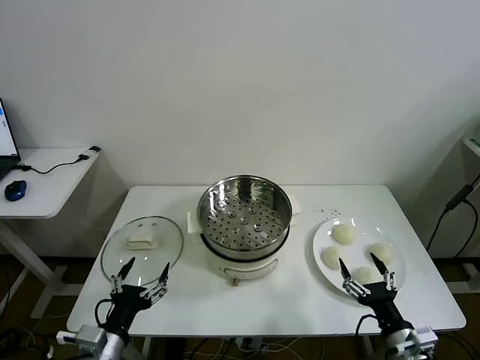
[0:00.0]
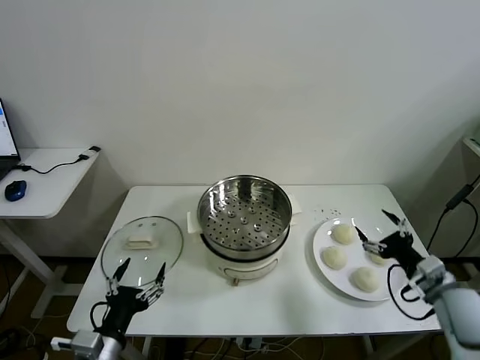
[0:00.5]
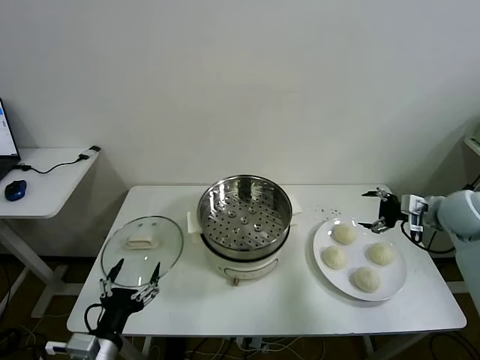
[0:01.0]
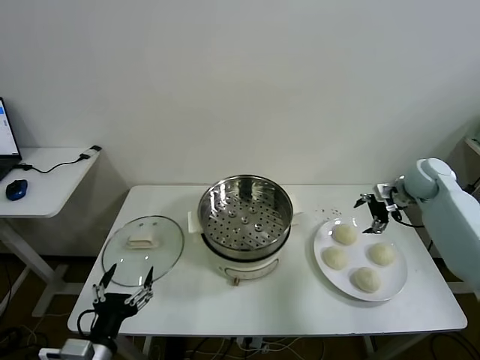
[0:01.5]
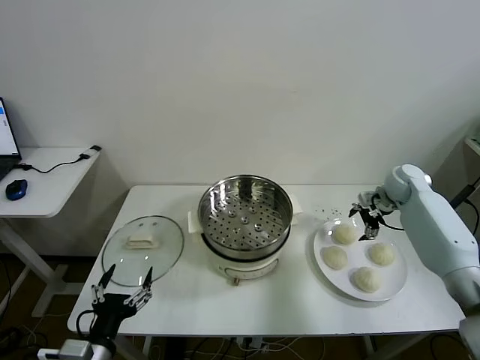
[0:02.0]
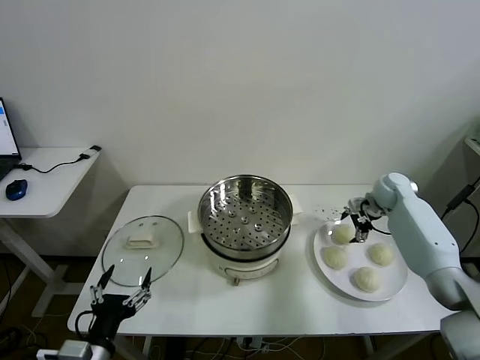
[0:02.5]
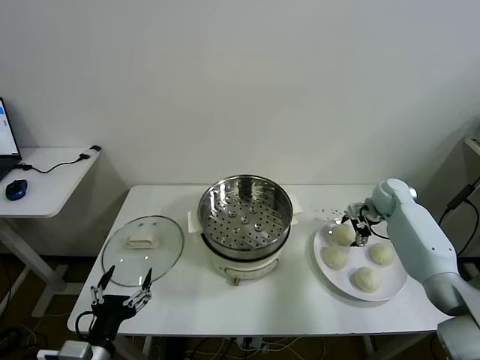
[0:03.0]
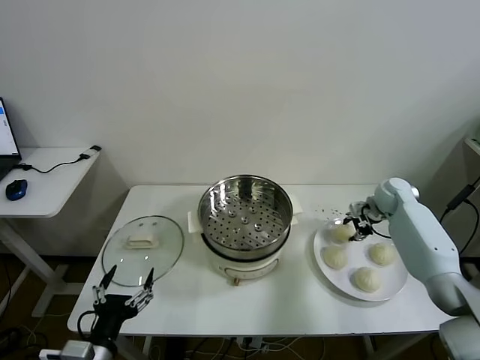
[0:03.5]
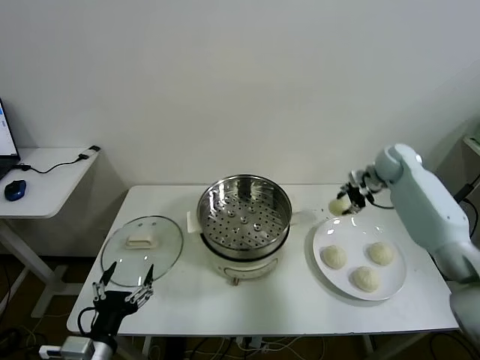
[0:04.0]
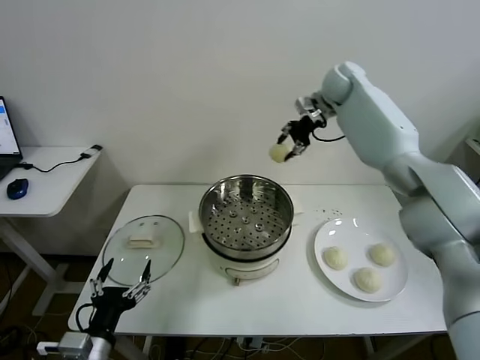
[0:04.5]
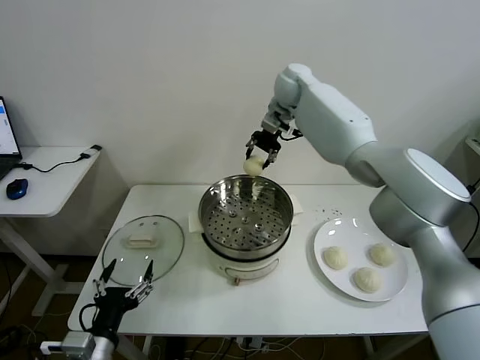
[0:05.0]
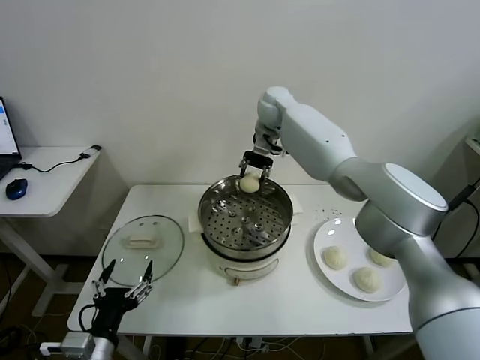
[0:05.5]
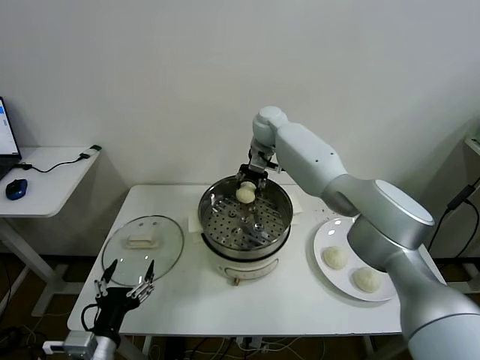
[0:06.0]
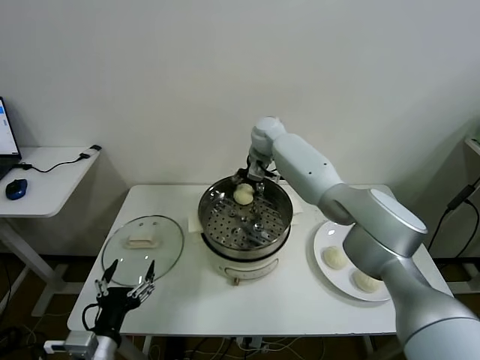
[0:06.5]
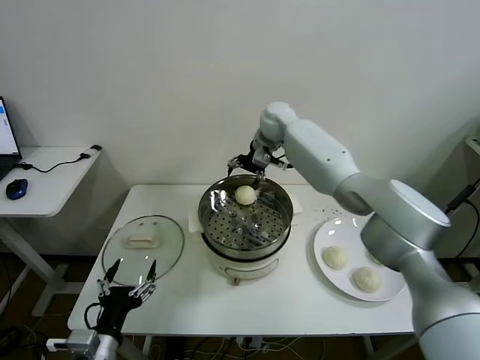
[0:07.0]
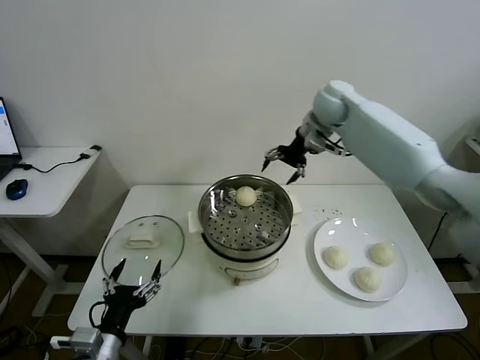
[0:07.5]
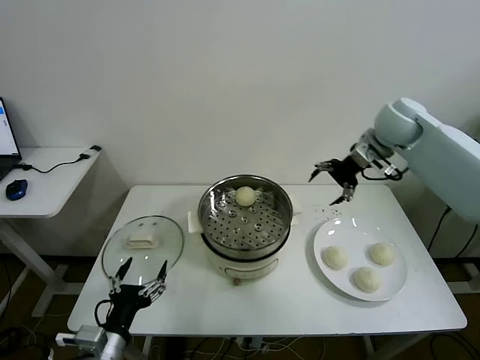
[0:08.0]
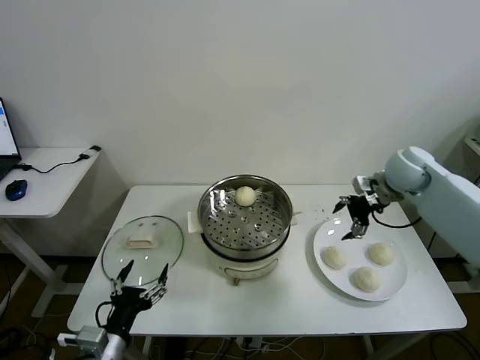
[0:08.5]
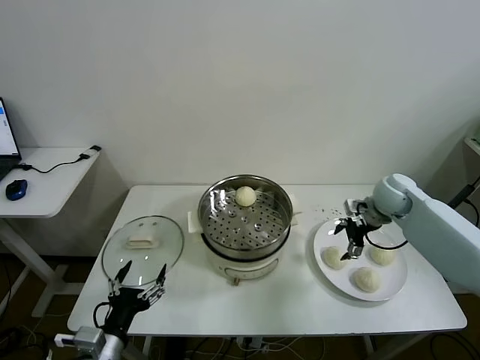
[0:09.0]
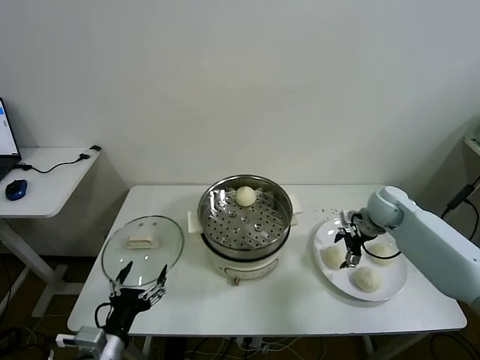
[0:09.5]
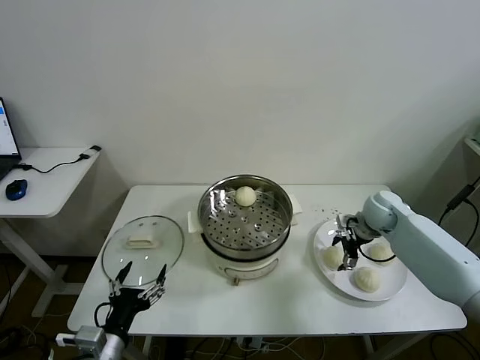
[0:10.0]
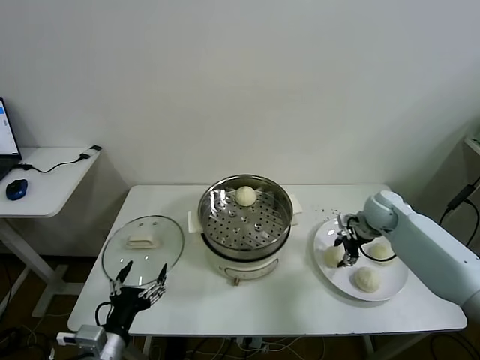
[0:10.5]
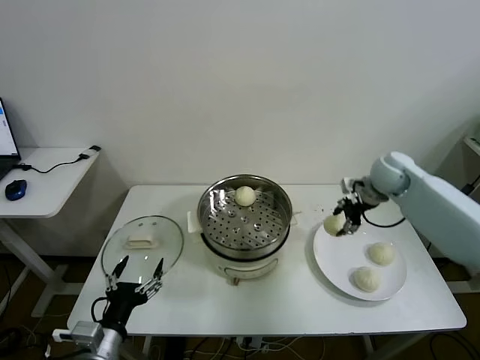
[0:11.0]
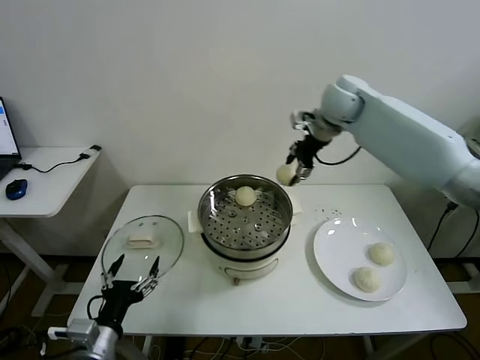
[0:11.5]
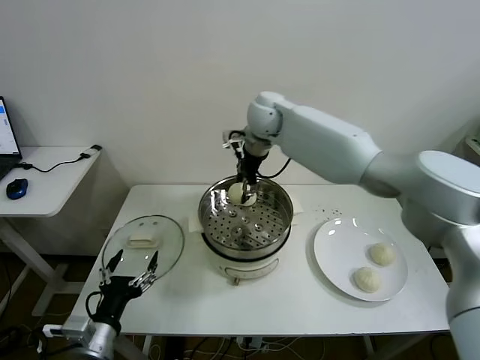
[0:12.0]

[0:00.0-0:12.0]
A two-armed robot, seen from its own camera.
Task of the whole recording: take steamed baozi put them in steamer then cover it.
Step, 0.0 to 3.5 s: Grasp the baozi in the plate with right gripper.
Step, 4.0 to 7.0 s: Place the baozi on the steamer with right gripper.
Step, 7.5 to 10.5 s: Grasp the baozi in the plate with right gripper.
2.0 to 4.0 s: The right gripper is displaced upward and forward by roughly 10 cm, and closes its fingers.
4.0 to 6.0 s: The right gripper heads to the left, covering some 30 cm.
6.0 to 8.0 s: The right gripper moves to the right and backward, roughly 30 cm, and opens its fingers.
8.0 to 10.0 s: The right gripper travels downward by some 20 cm.
10.0 to 12.0 s: The right gripper shifts about 40 cm to the left and upward, and closes up.

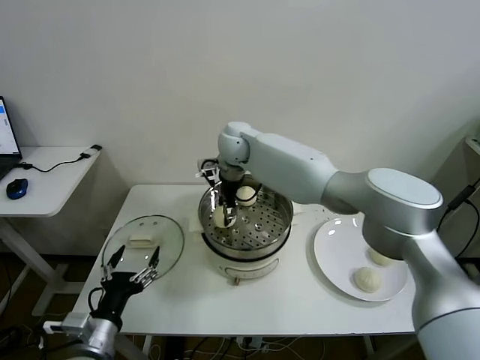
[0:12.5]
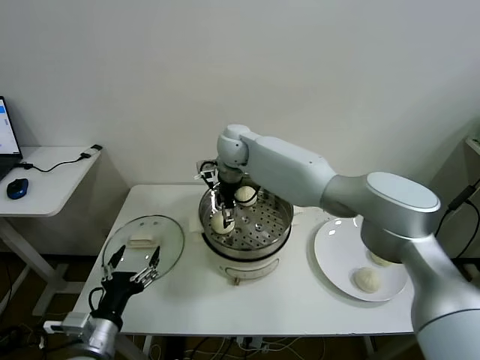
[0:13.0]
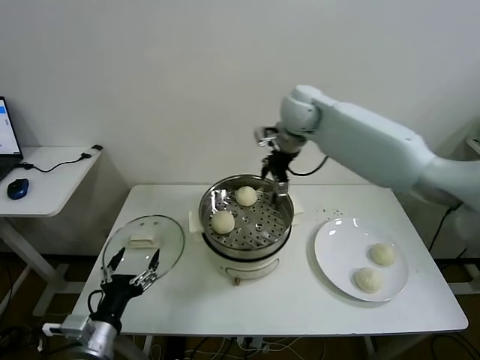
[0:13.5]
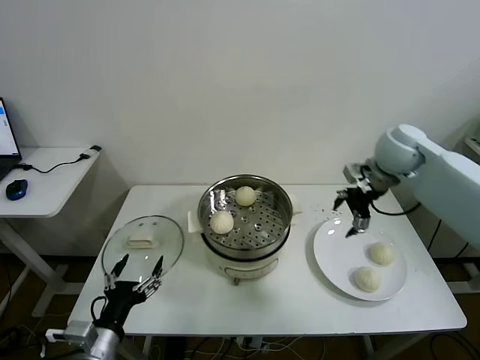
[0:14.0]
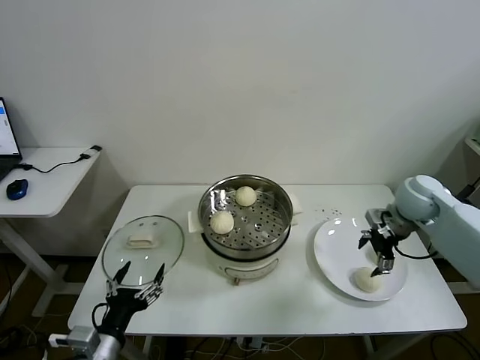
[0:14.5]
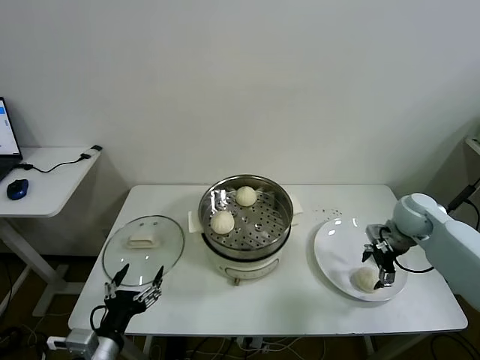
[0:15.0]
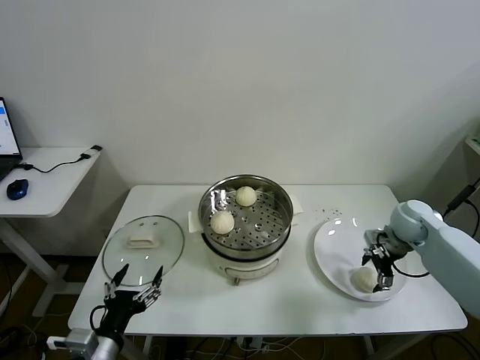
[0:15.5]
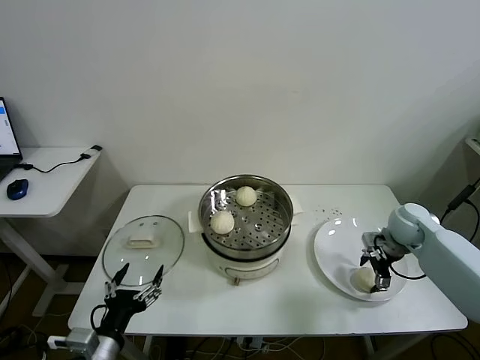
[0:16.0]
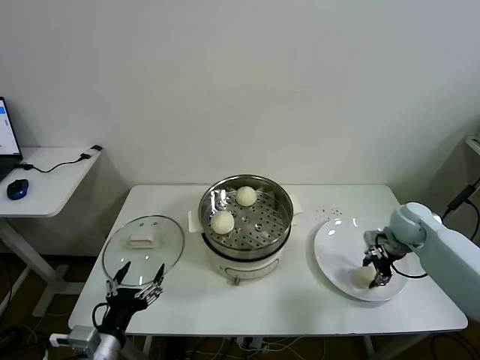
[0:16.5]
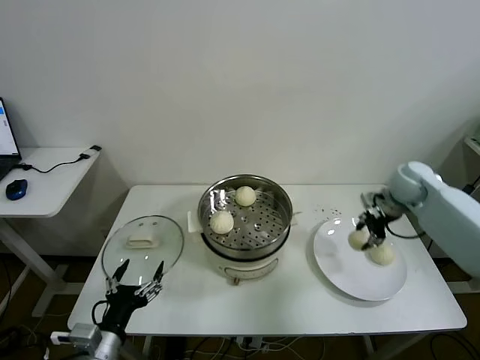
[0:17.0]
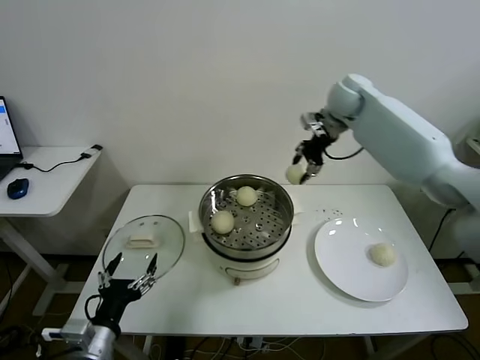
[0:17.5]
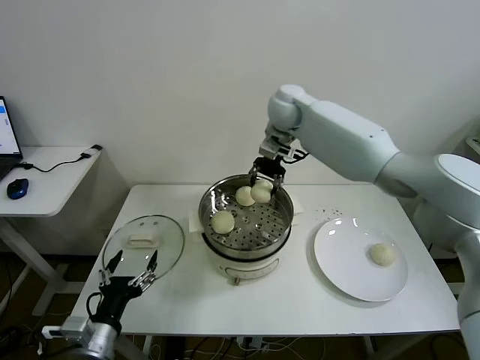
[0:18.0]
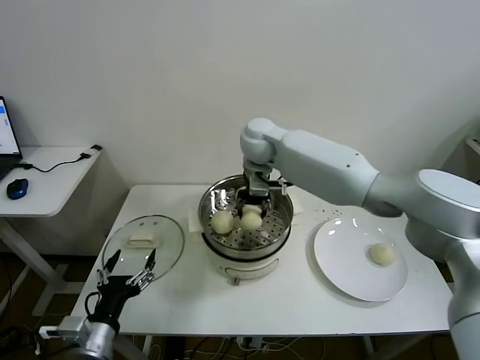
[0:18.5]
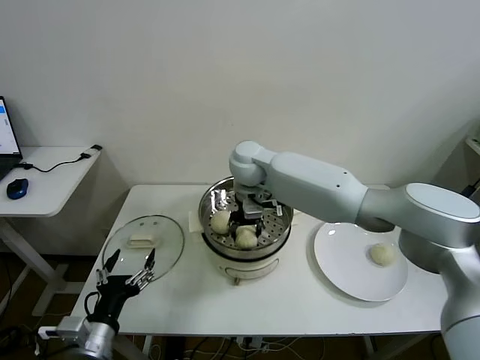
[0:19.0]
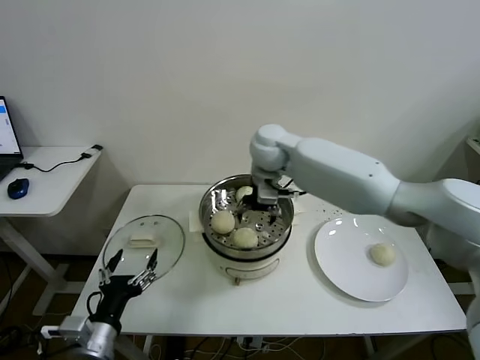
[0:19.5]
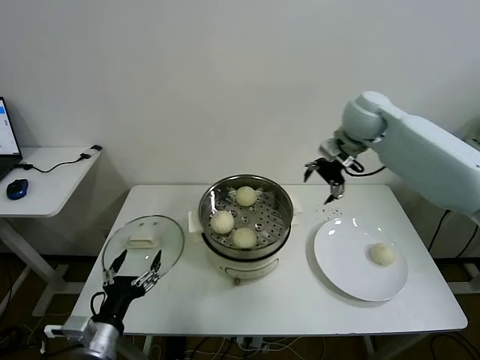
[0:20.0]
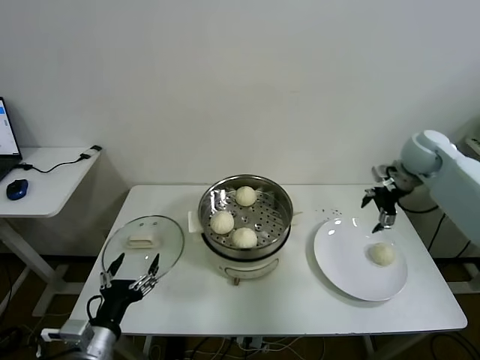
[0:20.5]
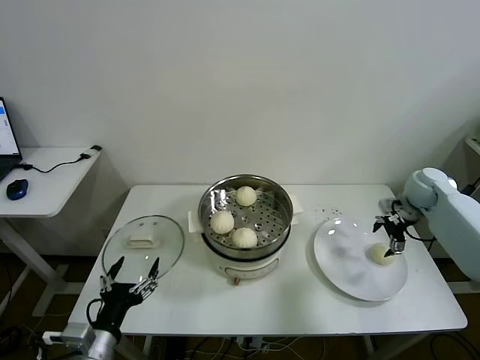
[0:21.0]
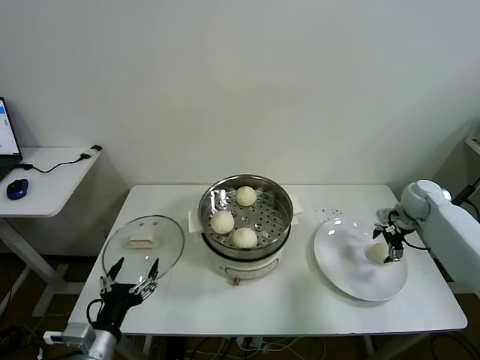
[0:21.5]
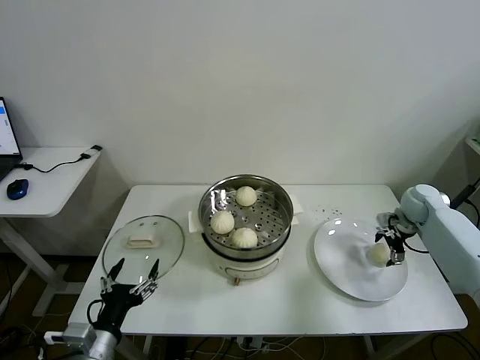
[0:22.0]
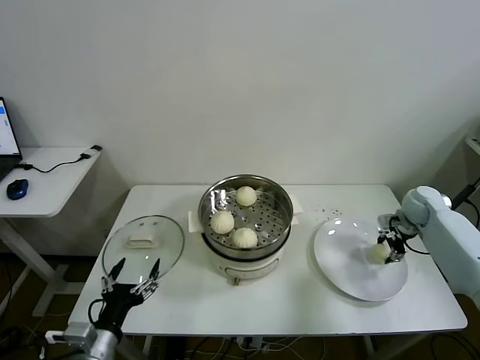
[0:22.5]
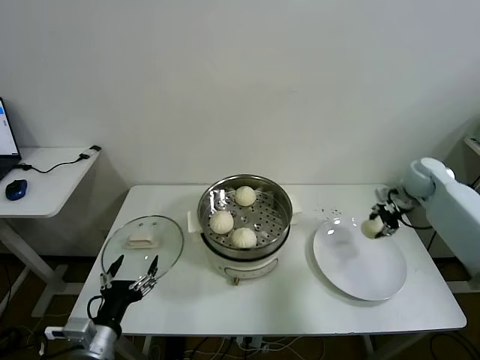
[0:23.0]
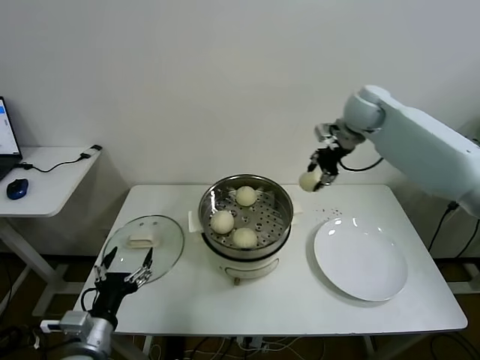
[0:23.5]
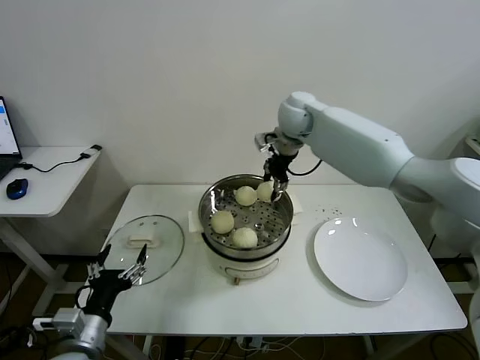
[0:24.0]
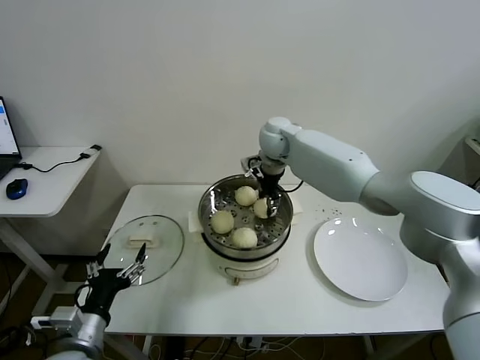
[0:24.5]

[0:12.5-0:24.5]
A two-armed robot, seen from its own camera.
Task of the whole recording: take steamed baozi put them in steamer then cover it.
Step, 13.5 to 16.5 s: Grasp the baozi in the plate with right gripper.
Step, 17.0 to 19.5 s: Place the baozi on the steamer with right gripper.
Step, 20.0 to 22.5 s: Grasp the baozi in the plate with right gripper.
12.5 to 14.5 s: The right gripper shifts roughly 40 cm to the right, and opens up.
14.5 to 16.5 s: The right gripper heads downward, covering approximately 10 cm, and closes its fingers.
16.5 to 18.5 s: The right gripper is displaced to the left and upward by roughly 40 cm.
18.5 to 20.5 s: The right gripper is displaced to the right by approximately 40 cm, and opens its fingers.
20.5 to 22.5 s: The right gripper moves downward, roughly 15 cm, and closes up.
22.5 to 24.5 s: The right gripper goes approximately 40 cm to the left.

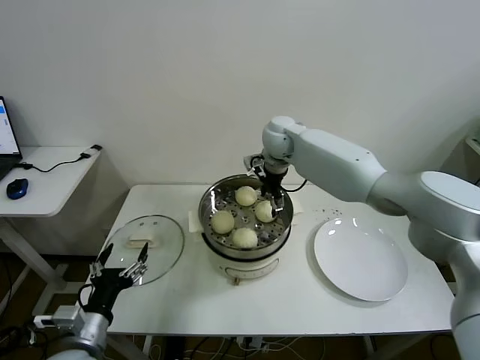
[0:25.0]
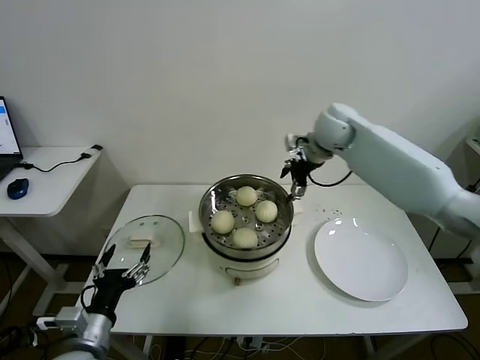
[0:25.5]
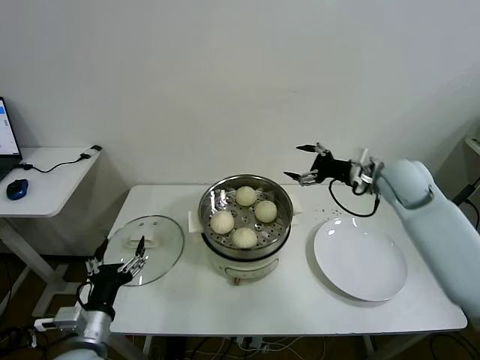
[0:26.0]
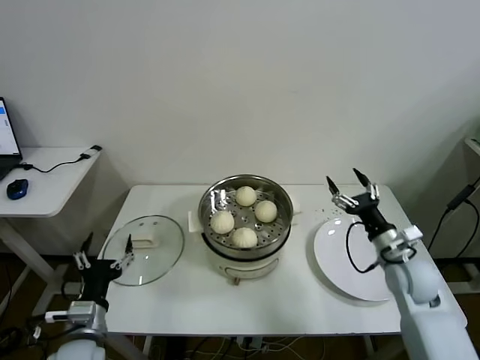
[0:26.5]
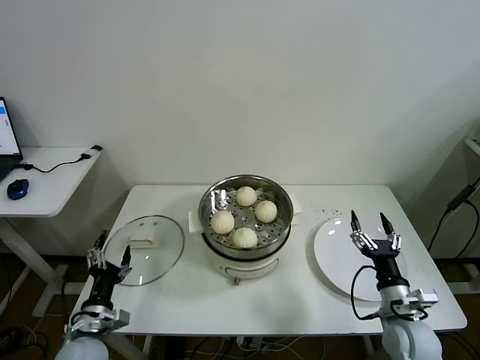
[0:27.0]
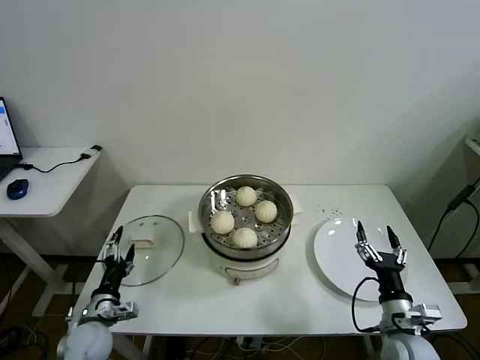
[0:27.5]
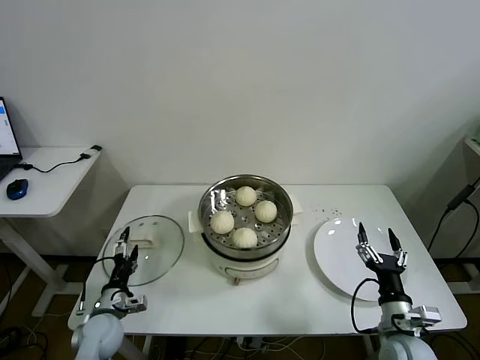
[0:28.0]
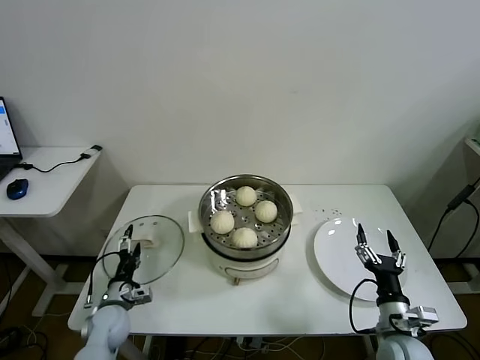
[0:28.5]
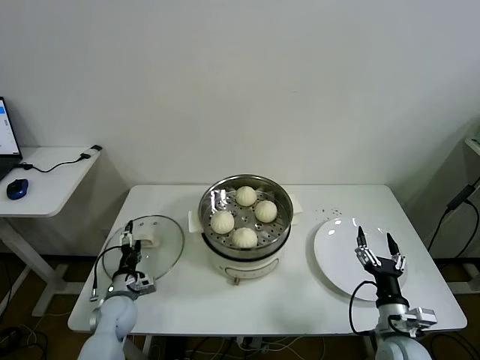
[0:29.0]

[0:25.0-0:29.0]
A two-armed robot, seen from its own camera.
Task of the whole recording: take steamed baozi put them in steamer then cover it.
25.0 to 27.0 s: The right gripper heads backward, downward and to the right, covering roughly 50 cm. The left gripper is displaced downward by approximately 10 cm.
27.0 to 29.0 s: The left gripper goes roughly 15 cm forward and downward.
